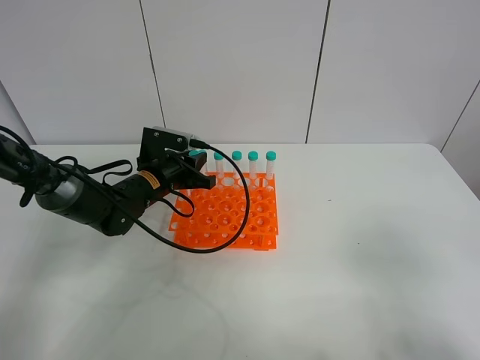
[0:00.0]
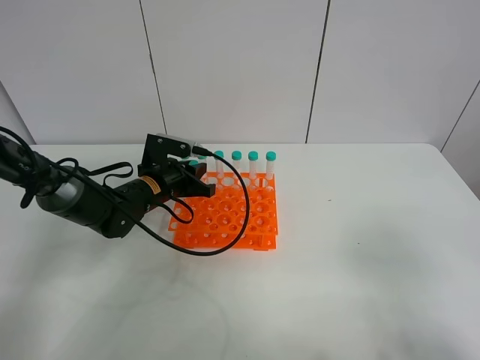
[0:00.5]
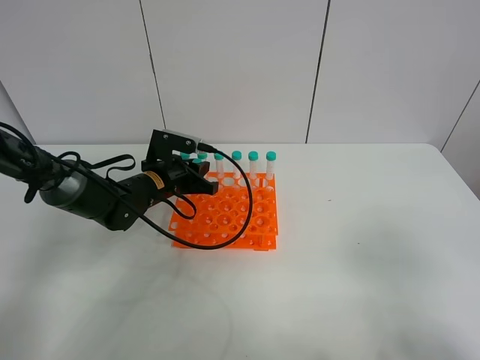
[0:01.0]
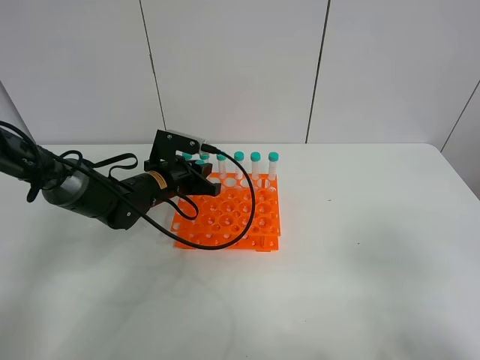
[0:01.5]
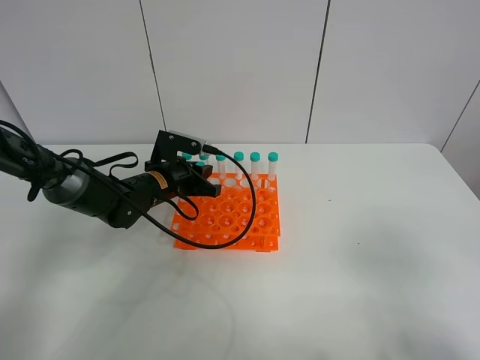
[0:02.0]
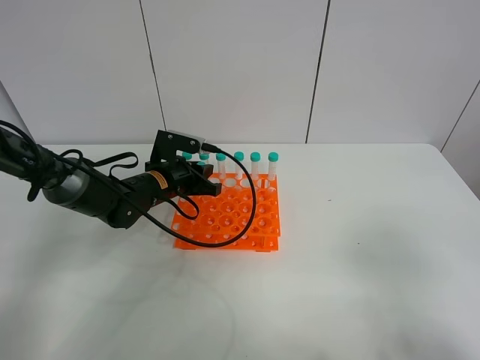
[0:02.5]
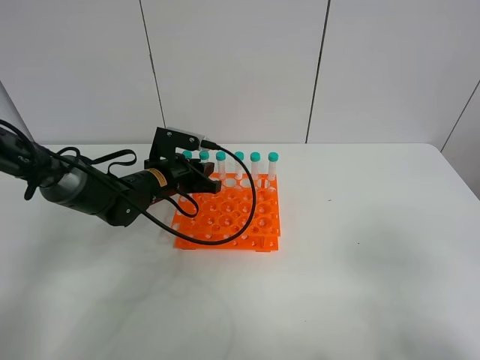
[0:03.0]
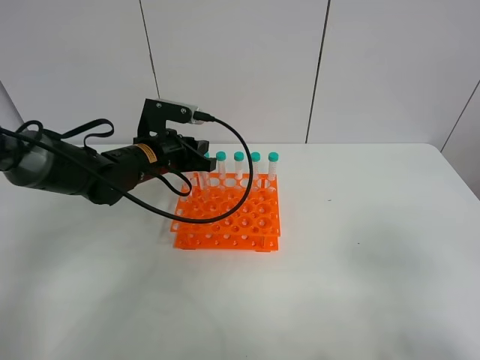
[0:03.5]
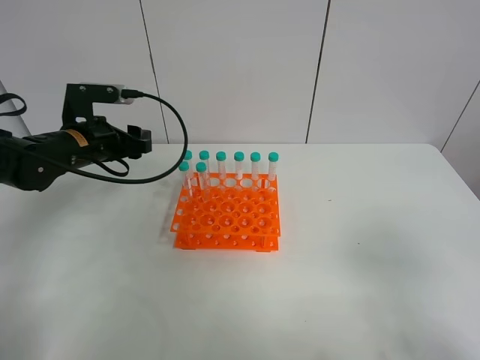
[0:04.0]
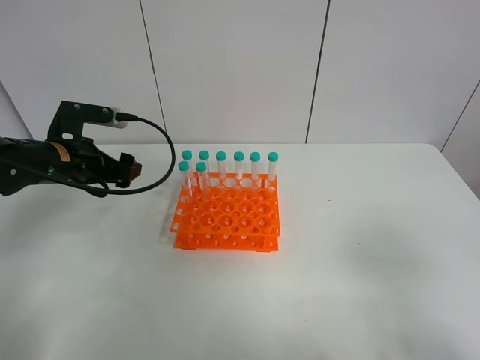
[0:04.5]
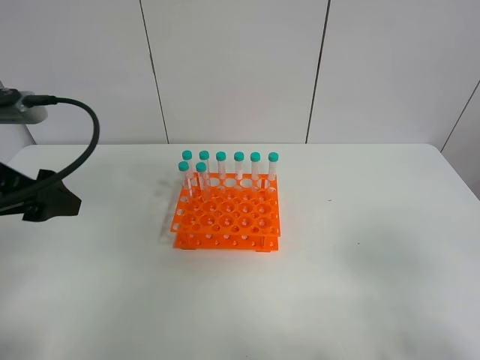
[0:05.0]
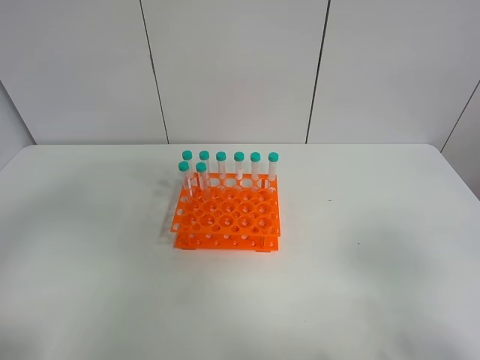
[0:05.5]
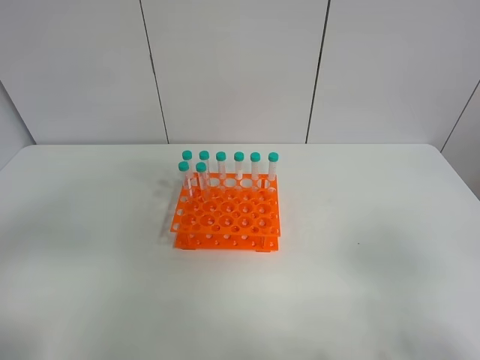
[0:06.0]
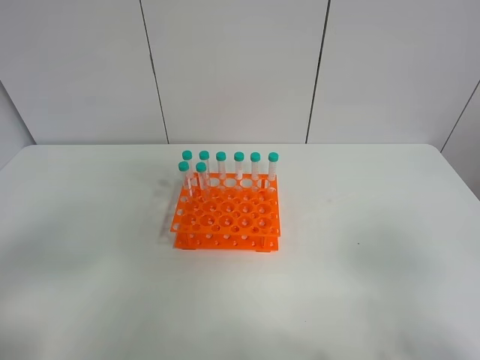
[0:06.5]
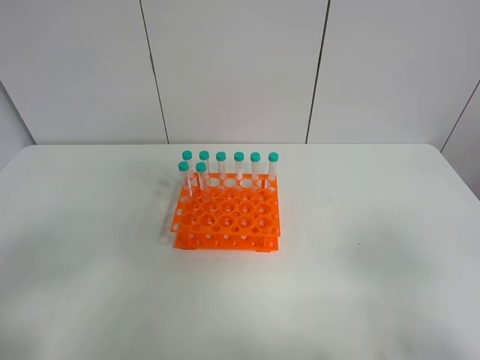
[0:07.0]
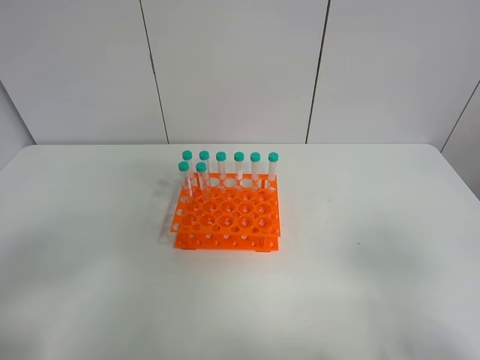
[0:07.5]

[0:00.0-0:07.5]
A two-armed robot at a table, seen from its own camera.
Task of the whole recording: Put the test tube on the table back onto the test tube rack.
Step, 0:00.0 to 0:04.0: Place the test tube on the test tube rack with the left gripper.
0:00.0 to 0:02.0: The grippers move only a little.
0:02.0 to 0:04.0: The left gripper goes some 15 cm to the left and upward, and opens its fingers.
0:04.0 to 0:05.5: The left gripper shifts about 30 cm backward and upward.
0:05.5 to 0:07.5: The left gripper is displaced backward and downward by approximately 10 cm.
